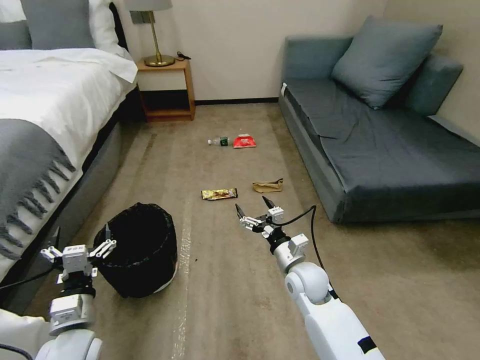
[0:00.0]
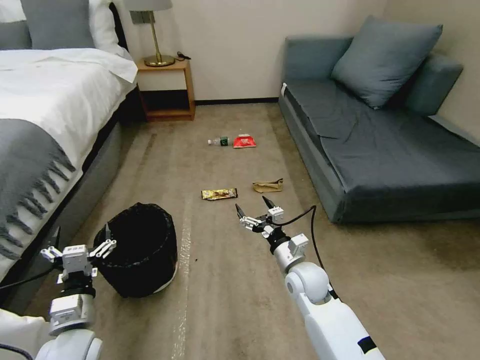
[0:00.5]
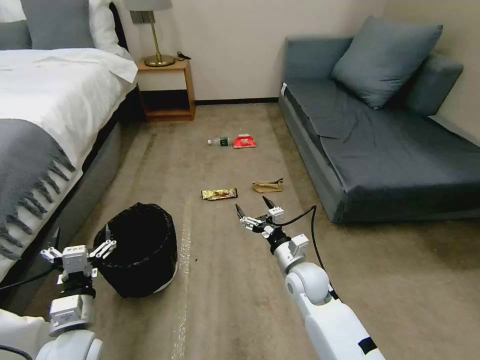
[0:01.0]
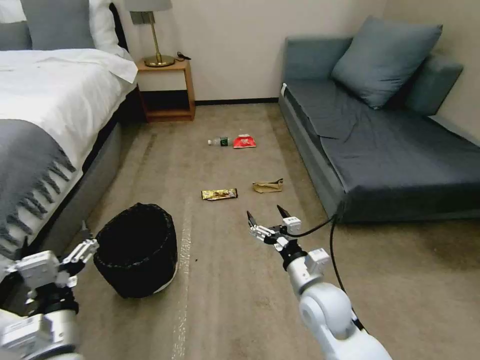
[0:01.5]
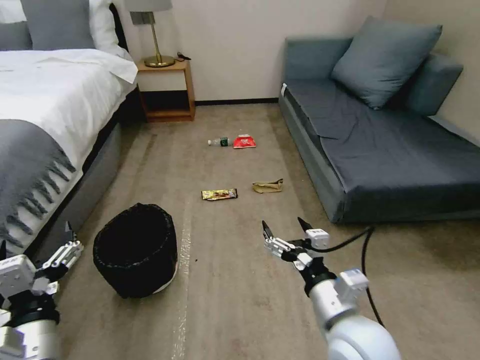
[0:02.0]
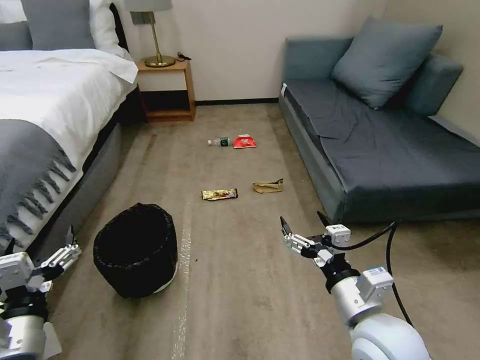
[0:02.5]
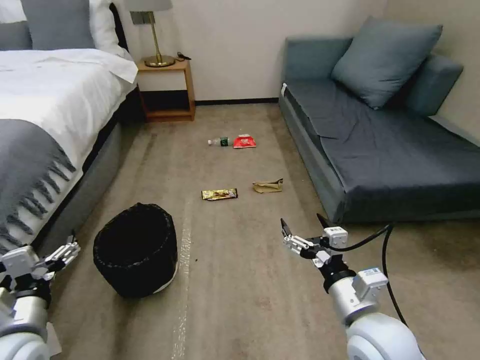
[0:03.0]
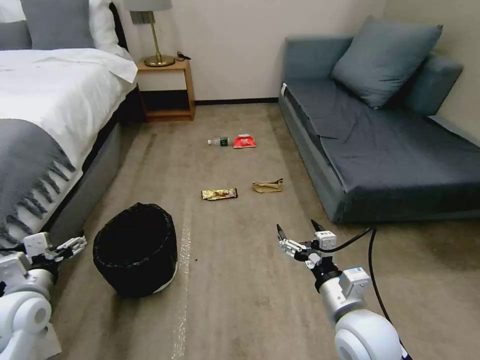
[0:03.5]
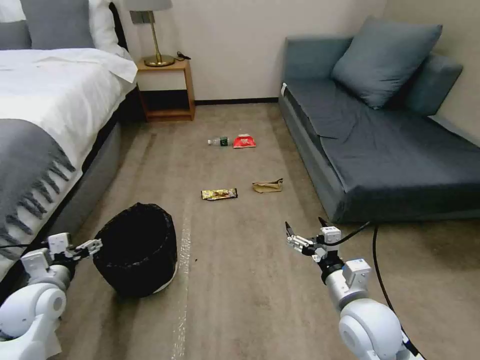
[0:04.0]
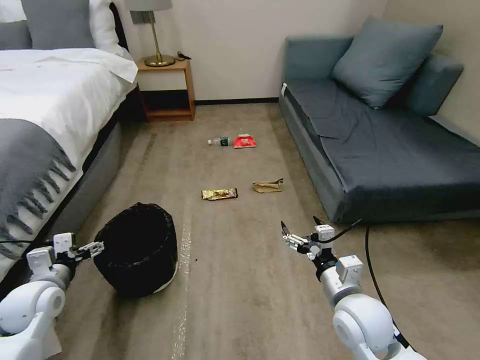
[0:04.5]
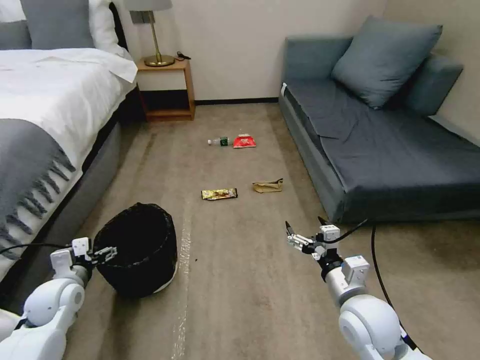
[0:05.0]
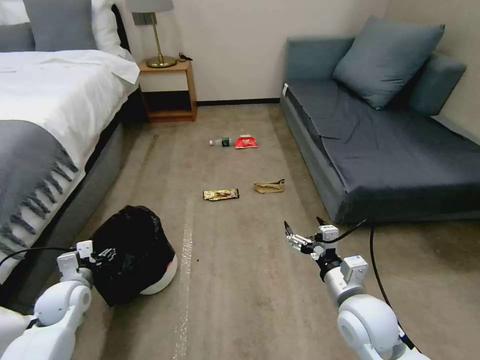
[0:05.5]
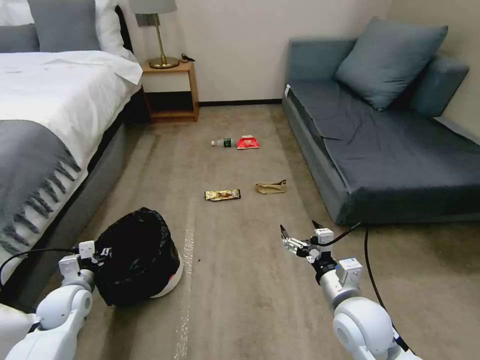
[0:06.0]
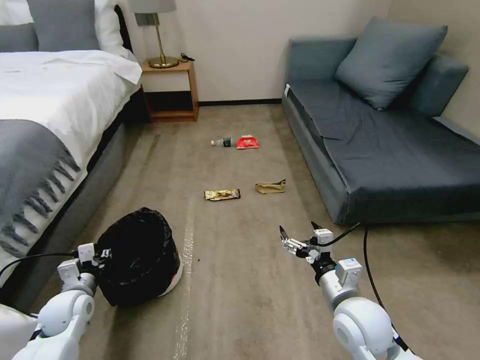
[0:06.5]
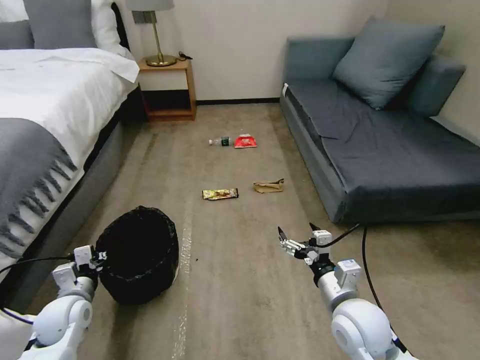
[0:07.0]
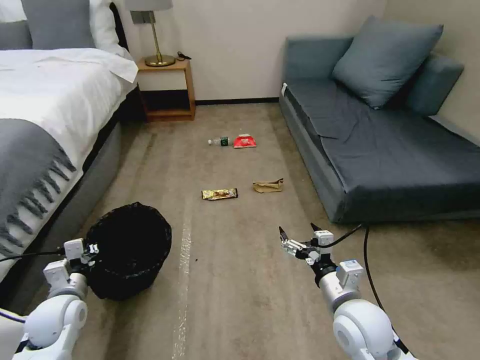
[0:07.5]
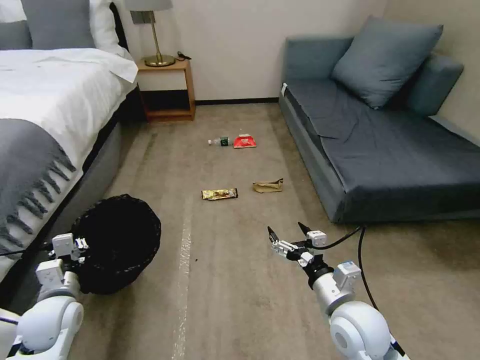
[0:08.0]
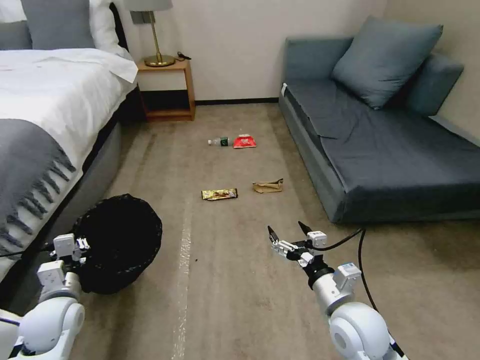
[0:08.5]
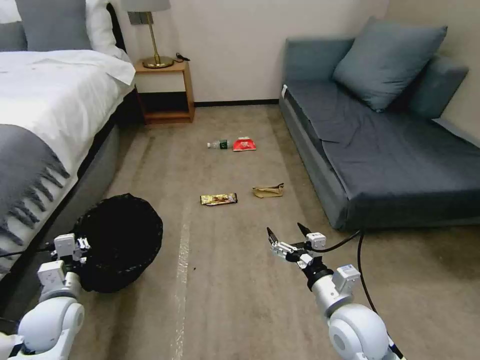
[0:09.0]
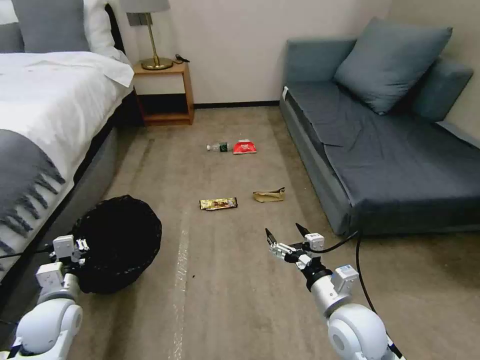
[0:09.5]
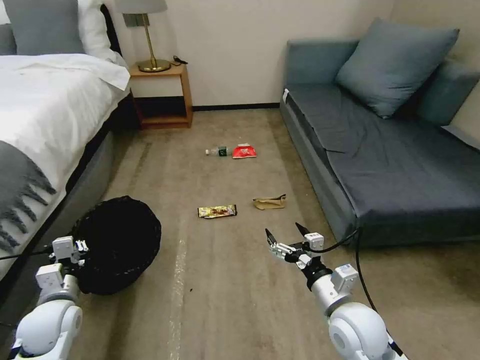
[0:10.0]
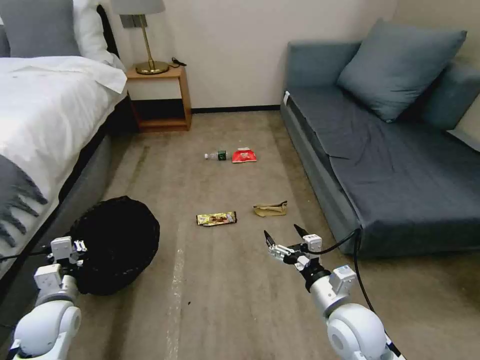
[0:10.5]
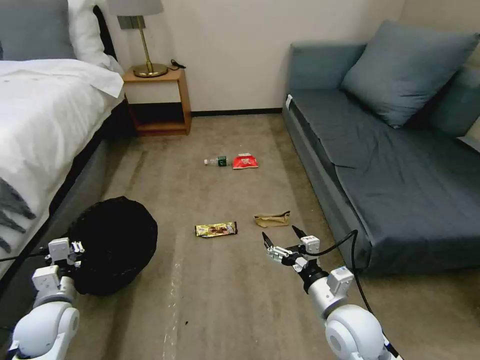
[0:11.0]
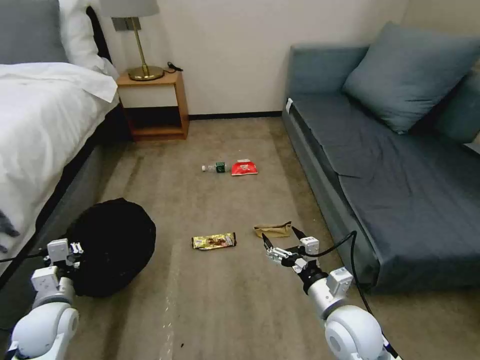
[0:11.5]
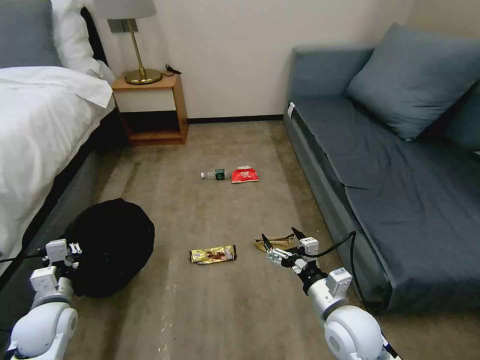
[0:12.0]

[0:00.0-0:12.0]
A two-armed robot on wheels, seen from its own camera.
Task of the whole recording: Pick up the trash bin, then pick up the garbage on the floor and place it into the trash bin.
0:02.0 to 0:04.0: The right gripper goes some 5 cm to the right; the left gripper heads to the left, forward and downward, covering some 25 cm.
0:04.0 to 0:06.0: The left gripper is displaced downward by about 10 cm, and closes.
0:06.0 to 0:08.0: The left gripper moves upward, some 5 cm.

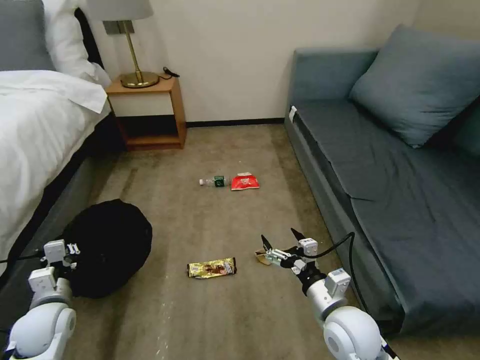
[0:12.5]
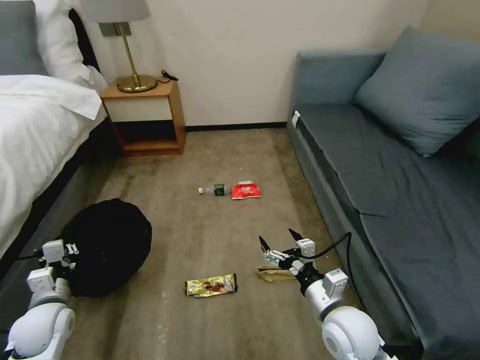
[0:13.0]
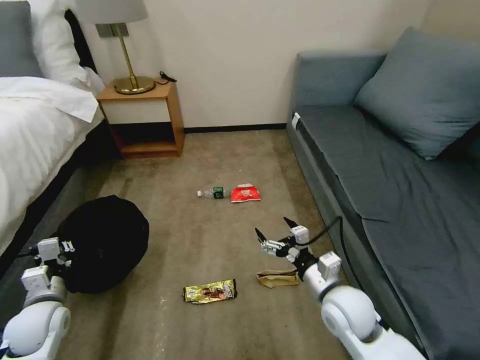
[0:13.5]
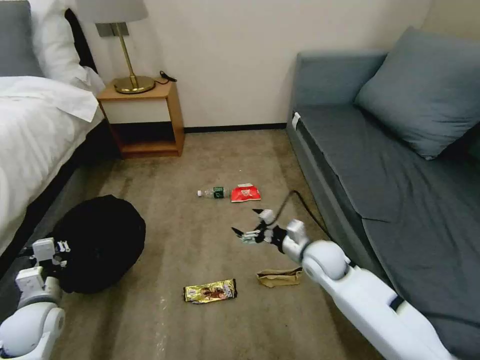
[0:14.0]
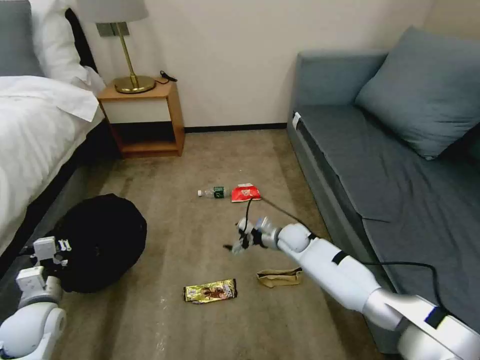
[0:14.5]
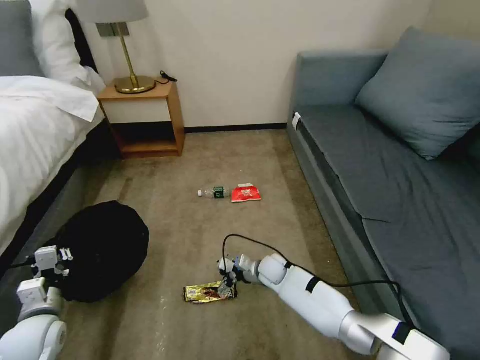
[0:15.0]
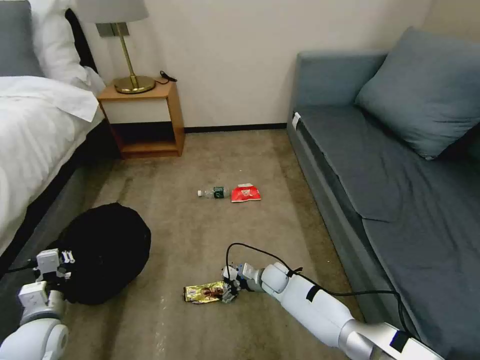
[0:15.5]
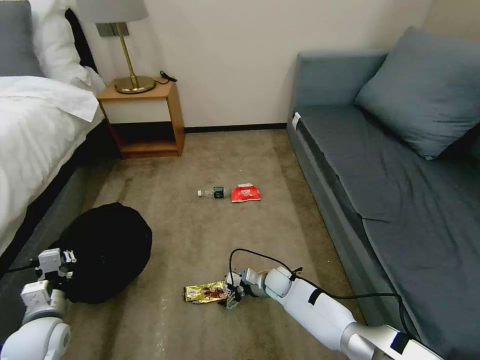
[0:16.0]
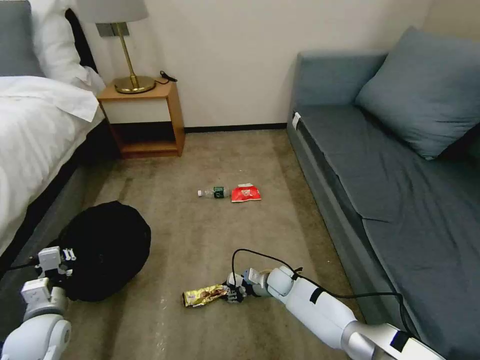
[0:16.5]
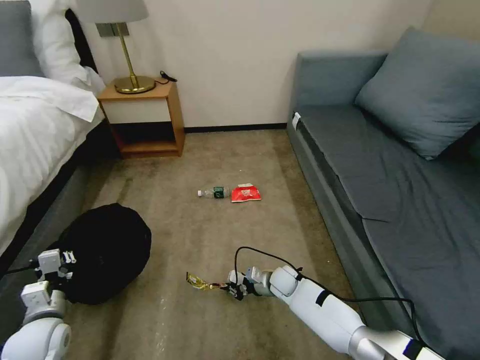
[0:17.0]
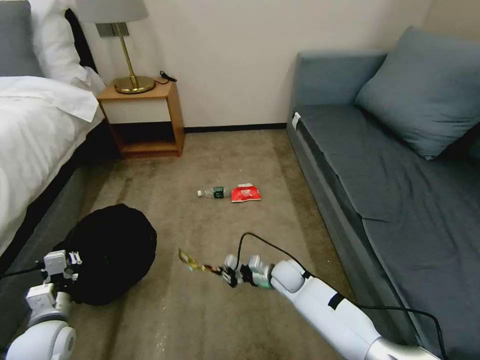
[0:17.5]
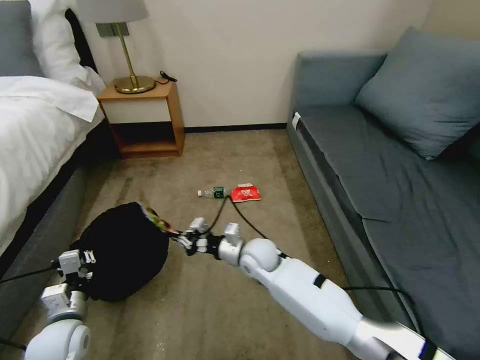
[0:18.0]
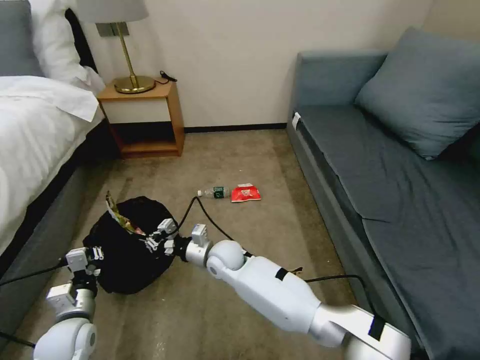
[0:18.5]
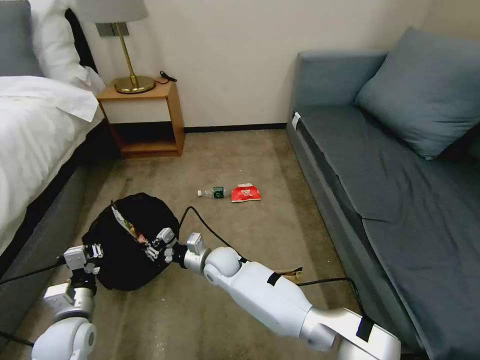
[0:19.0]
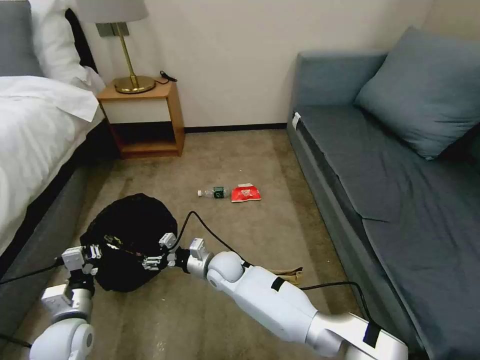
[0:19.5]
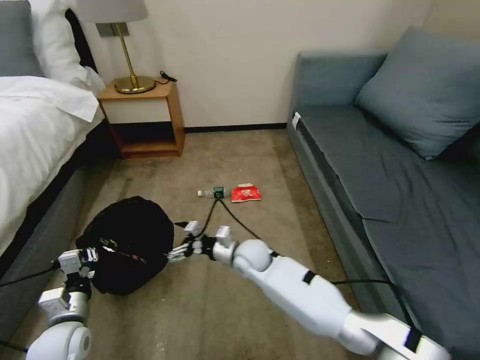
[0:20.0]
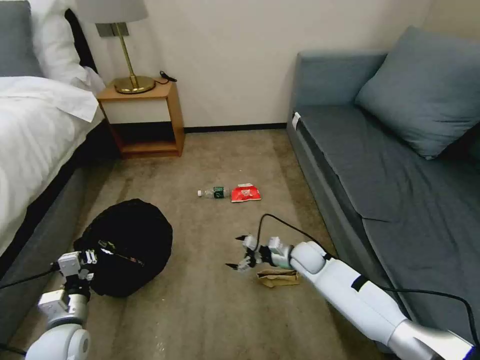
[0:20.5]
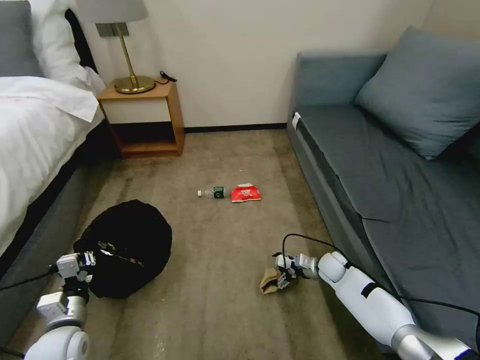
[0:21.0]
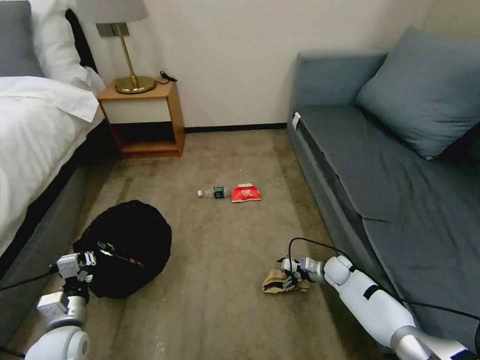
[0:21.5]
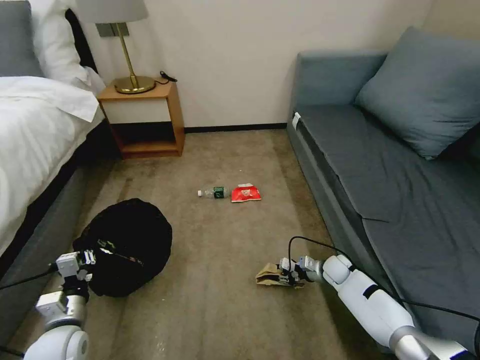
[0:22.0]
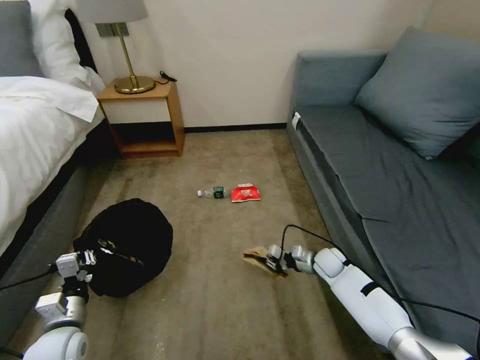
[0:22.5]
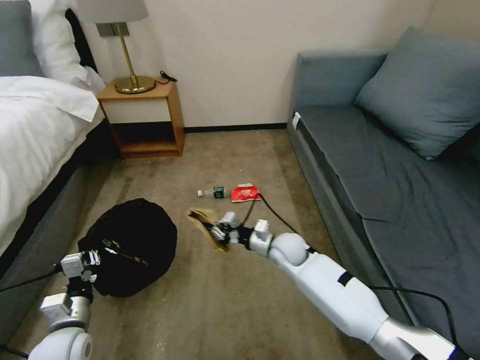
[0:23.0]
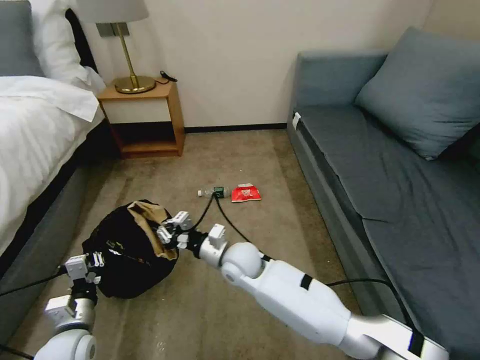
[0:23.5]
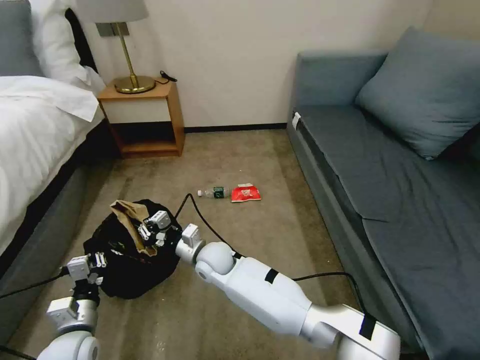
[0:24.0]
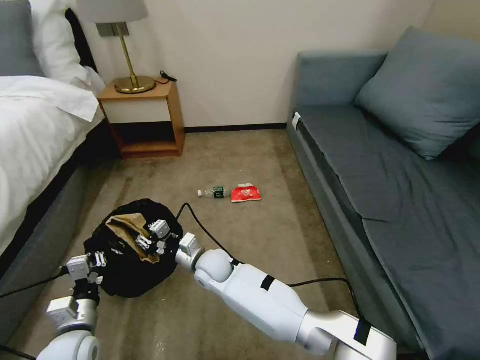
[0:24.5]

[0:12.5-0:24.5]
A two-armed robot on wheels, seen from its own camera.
Task of the whole recording: Pick up the trash bin, then pick up the garbage on the floor and place it into the trash bin.
0:12.5 to 0:14.5: The right gripper is displaced forward by approximately 25 cm.
0:14.5 to 0:16.5: The right gripper heads downward and backward, covering approximately 15 cm, and closes its fingers.
0:16.5 to 0:18.5: The left gripper travels to the right by some 5 cm; the right gripper goes some 25 cm to the left and upward, and closes its fingers.
0:18.5 to 0:20.5: The right gripper is displaced to the right by some 25 cm, and opens.
0:20.5 to 0:22.5: The right gripper shifts roughly 10 cm to the right, and closes.
0:22.5 to 0:24.5: The right gripper is displaced to the left by approximately 35 cm.

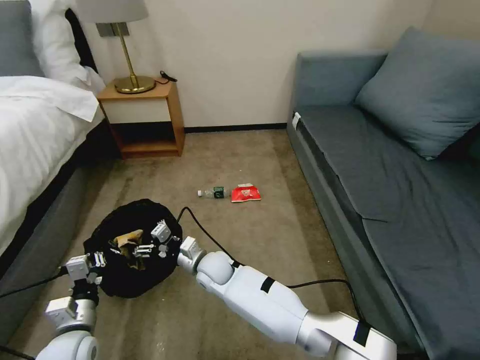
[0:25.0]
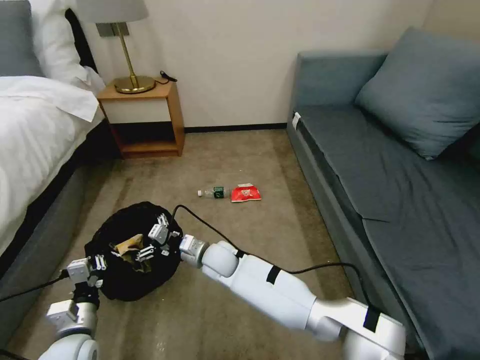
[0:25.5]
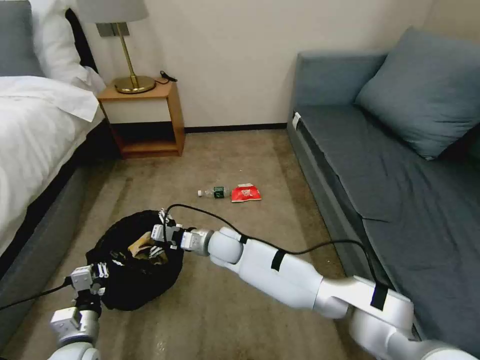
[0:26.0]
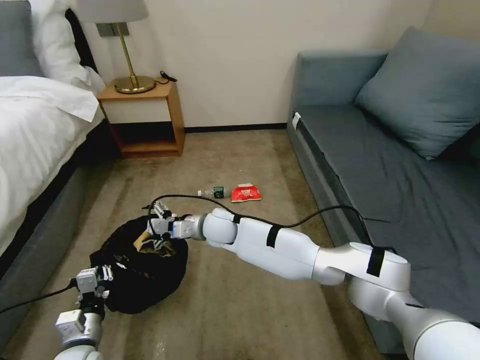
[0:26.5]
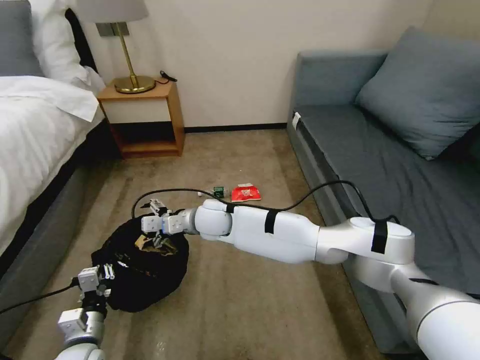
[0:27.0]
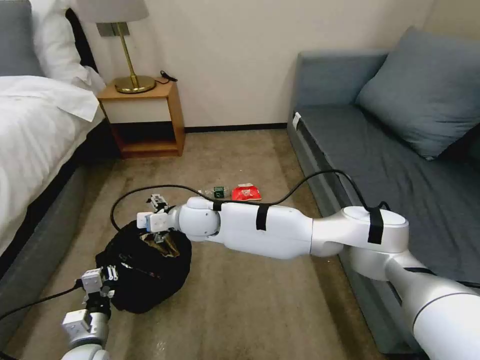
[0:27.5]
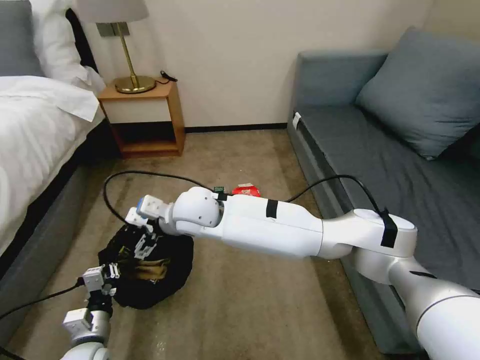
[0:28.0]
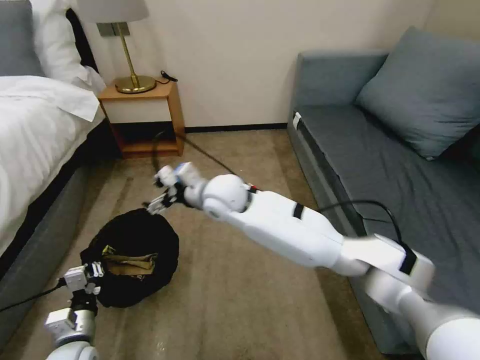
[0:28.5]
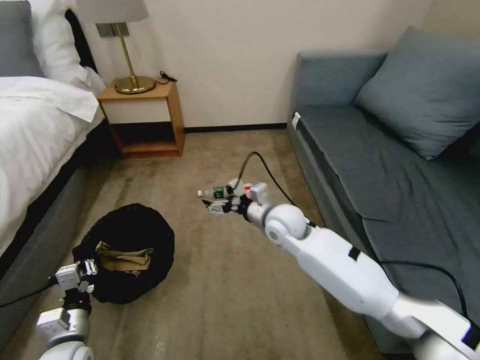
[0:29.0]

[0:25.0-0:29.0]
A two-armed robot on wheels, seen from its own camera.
Task of the whole recording: Pick up the trash bin, then pick up the garbage on the floor and place it into the trash bin.
0:25.0 to 0:27.0: The right gripper heads upward and forward, covering roughly 15 cm.
0:27.0 to 0:29.0: The right gripper shifts about 20 cm to the right.
